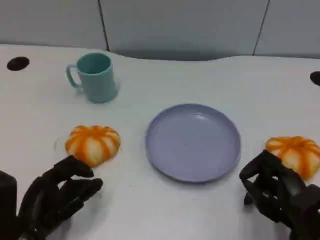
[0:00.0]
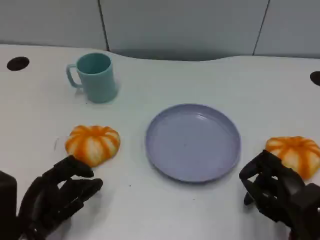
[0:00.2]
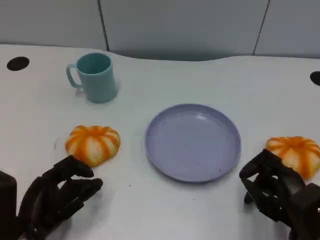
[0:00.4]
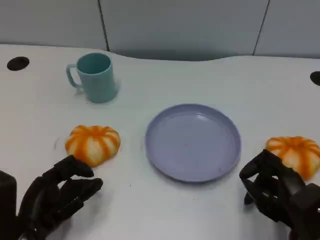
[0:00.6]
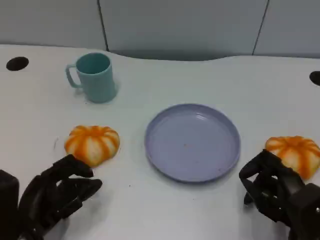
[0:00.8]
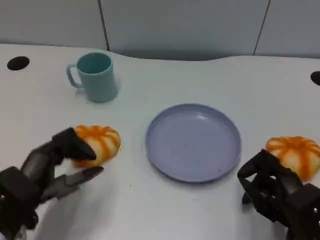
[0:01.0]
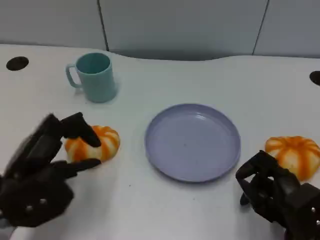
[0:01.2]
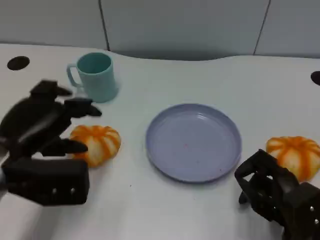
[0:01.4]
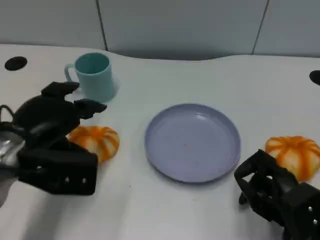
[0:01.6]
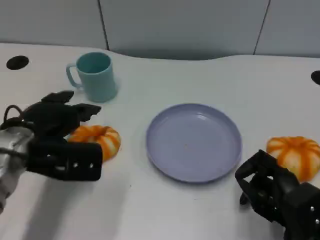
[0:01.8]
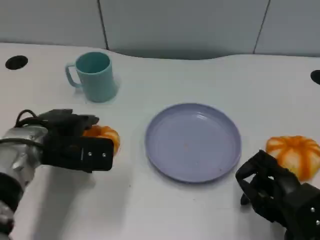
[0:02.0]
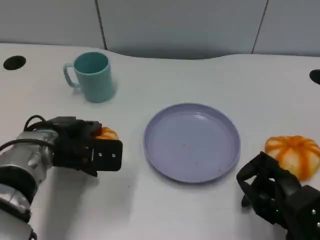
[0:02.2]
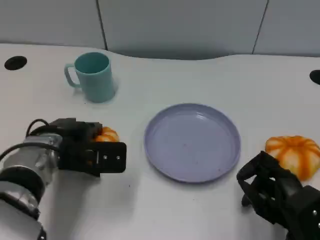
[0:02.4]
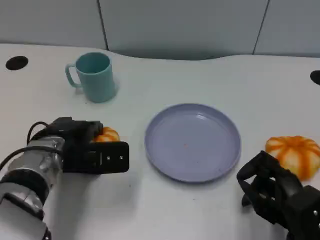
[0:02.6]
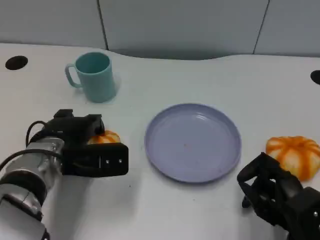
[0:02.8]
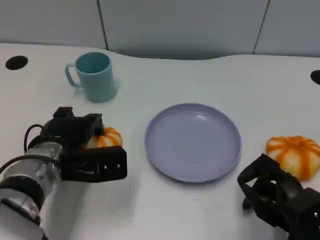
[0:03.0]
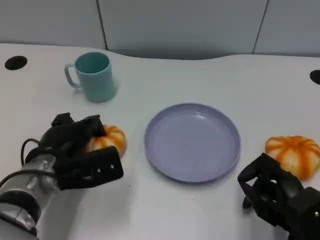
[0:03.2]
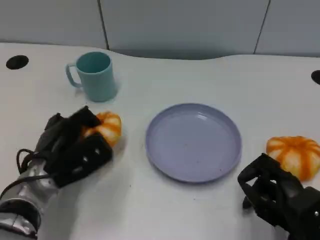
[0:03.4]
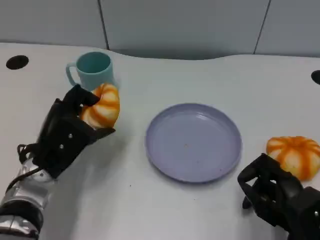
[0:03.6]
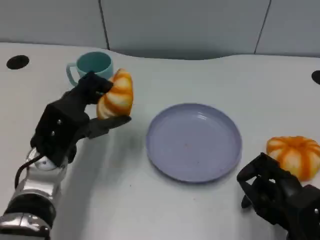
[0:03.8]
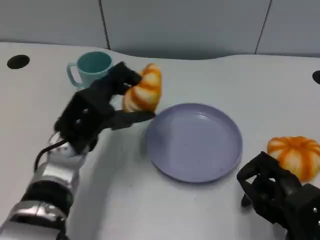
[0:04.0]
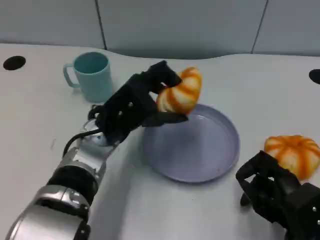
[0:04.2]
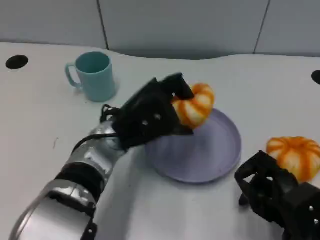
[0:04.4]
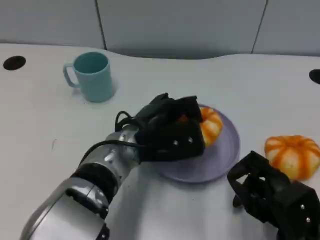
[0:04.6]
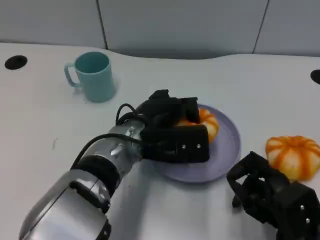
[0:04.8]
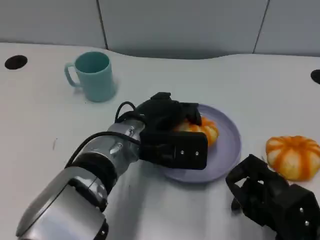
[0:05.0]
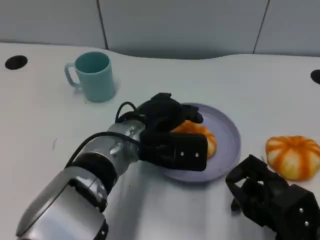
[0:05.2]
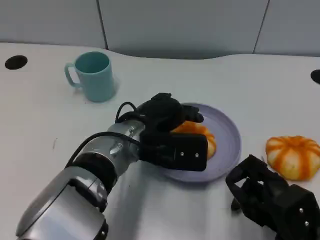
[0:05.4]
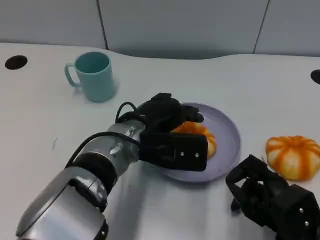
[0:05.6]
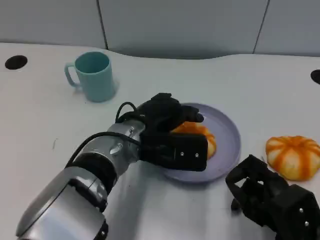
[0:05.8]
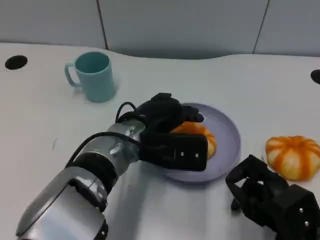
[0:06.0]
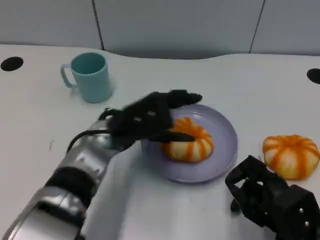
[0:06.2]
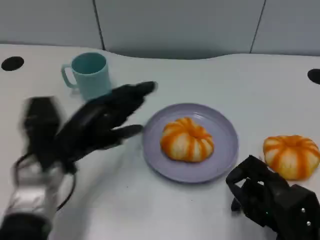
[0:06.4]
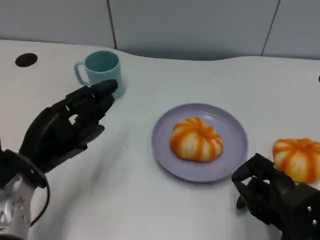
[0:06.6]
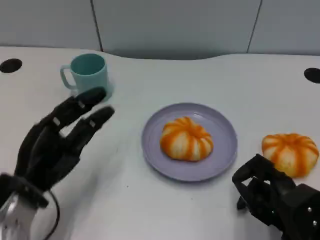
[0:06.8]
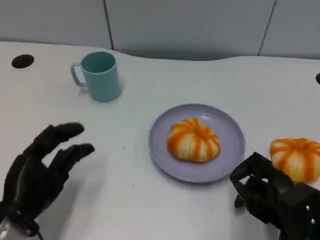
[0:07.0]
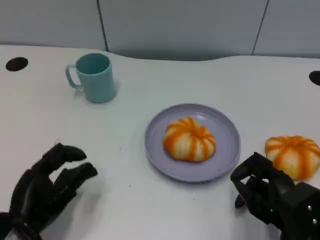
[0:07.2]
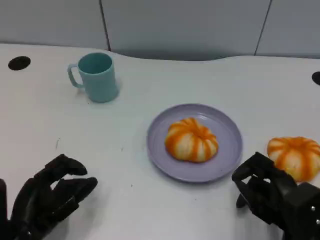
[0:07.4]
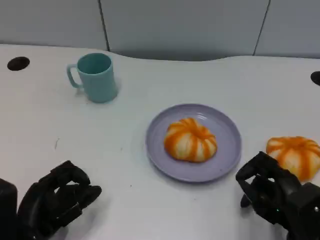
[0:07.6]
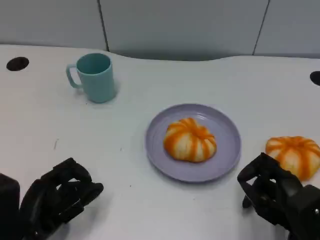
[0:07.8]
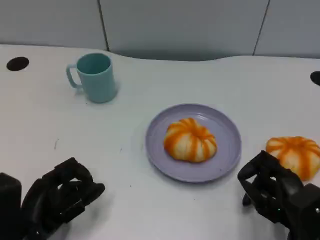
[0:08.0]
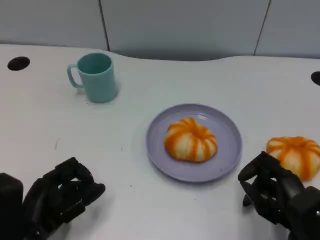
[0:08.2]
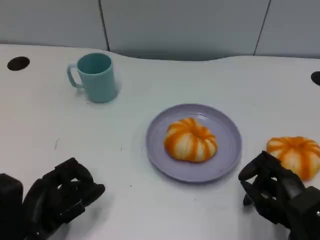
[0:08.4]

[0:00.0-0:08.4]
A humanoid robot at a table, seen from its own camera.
Task of the whole recording: Grasp the bread from the table and place it into the plate.
0:00.0 to 0:01.4: The left hand shifts some 15 cm upward and forward.
0:01.4 to 0:02.8: The left hand heads downward and forward, covering some 10 cm.
0:02.8 to 0:04.2: The left hand goes some 10 cm to the right.
0:05.6 to 0:07.0: The left hand moves to the left and backward, roughly 20 cm.
0:07.0 to 0:08.4: There are only small adjustments of the hands.

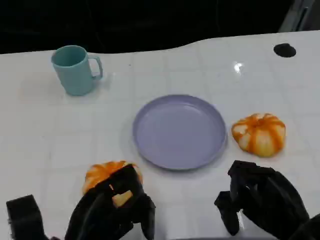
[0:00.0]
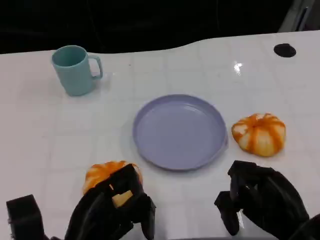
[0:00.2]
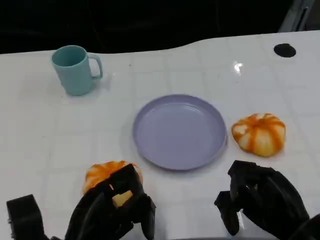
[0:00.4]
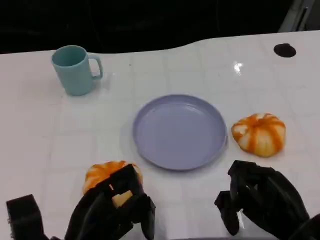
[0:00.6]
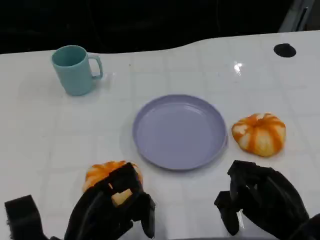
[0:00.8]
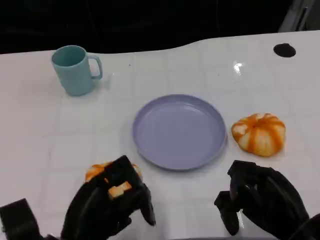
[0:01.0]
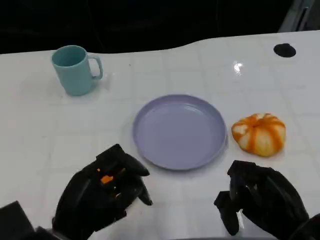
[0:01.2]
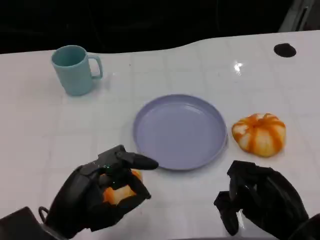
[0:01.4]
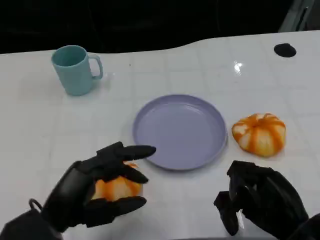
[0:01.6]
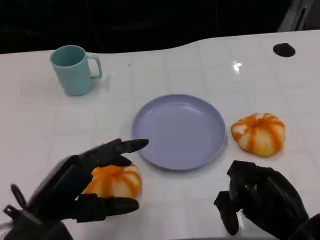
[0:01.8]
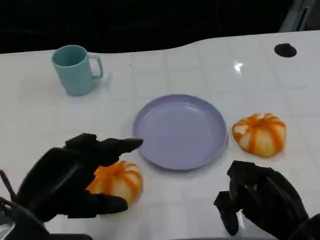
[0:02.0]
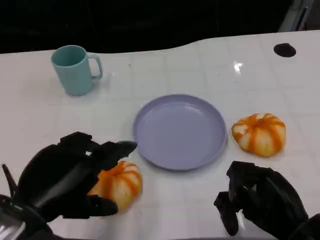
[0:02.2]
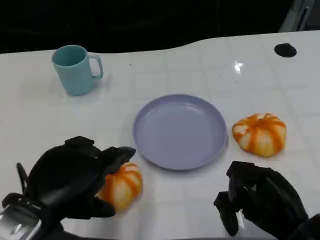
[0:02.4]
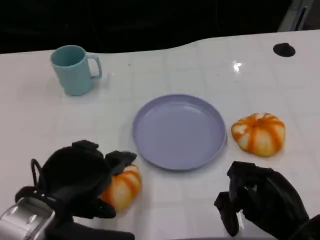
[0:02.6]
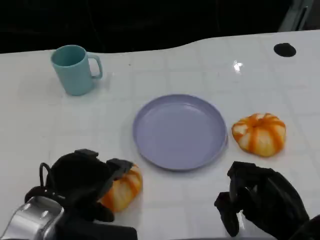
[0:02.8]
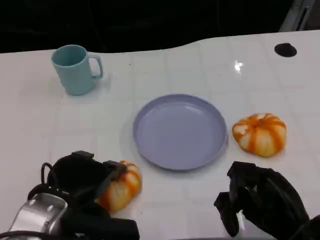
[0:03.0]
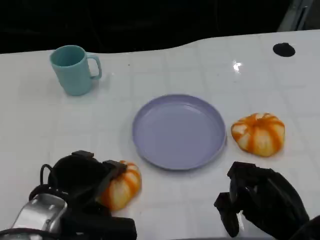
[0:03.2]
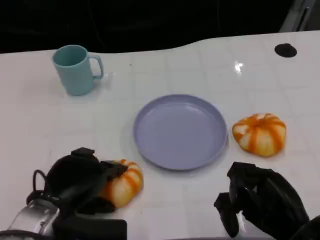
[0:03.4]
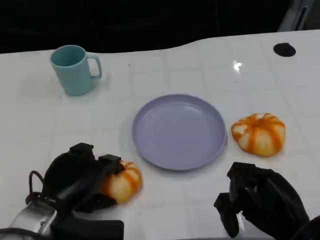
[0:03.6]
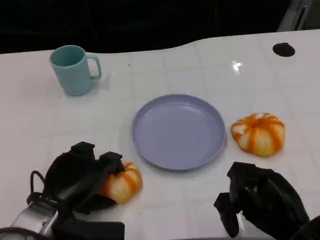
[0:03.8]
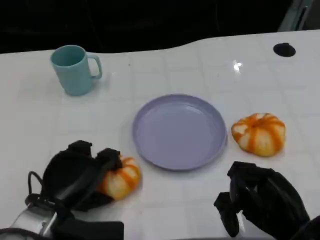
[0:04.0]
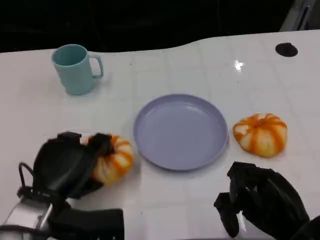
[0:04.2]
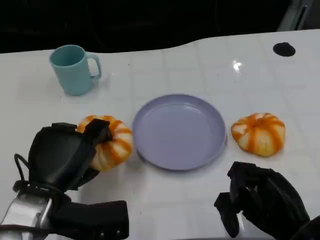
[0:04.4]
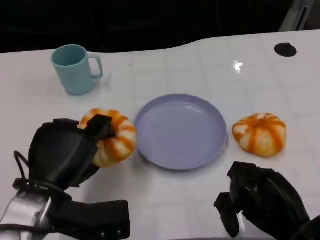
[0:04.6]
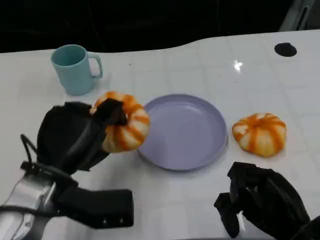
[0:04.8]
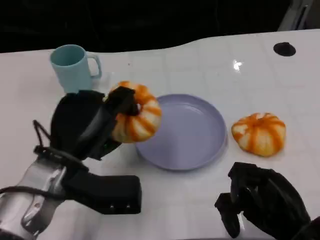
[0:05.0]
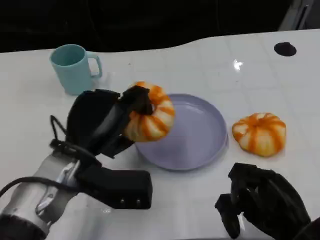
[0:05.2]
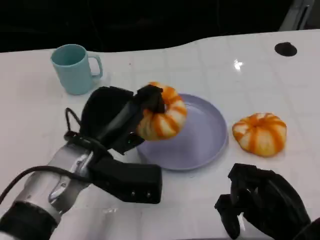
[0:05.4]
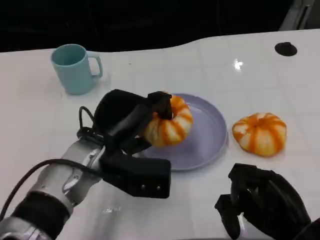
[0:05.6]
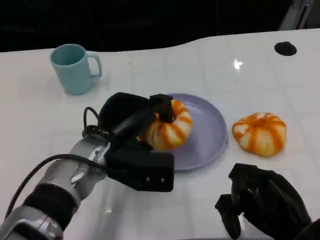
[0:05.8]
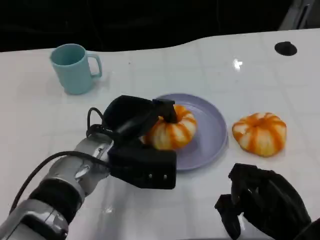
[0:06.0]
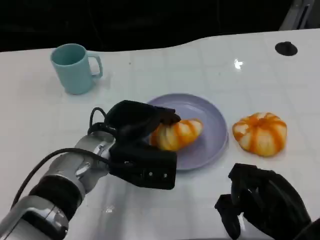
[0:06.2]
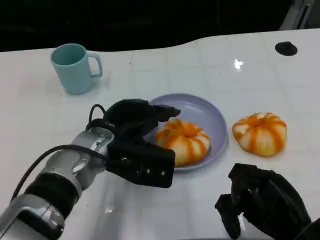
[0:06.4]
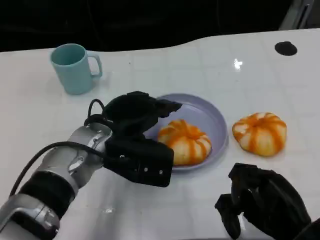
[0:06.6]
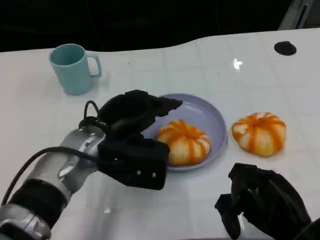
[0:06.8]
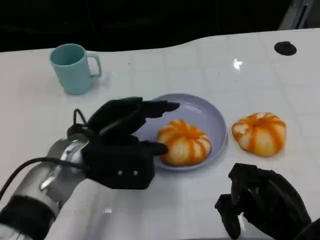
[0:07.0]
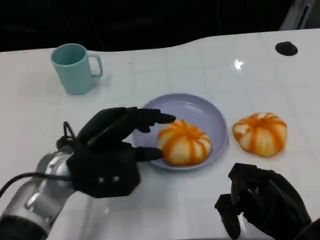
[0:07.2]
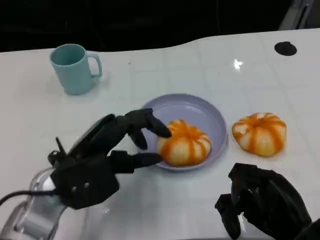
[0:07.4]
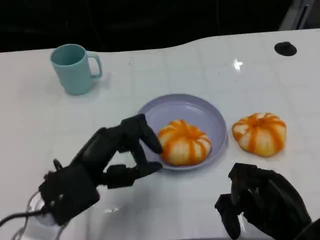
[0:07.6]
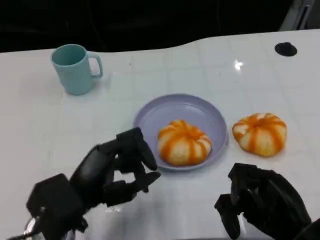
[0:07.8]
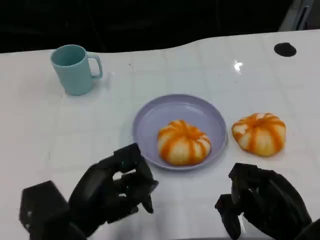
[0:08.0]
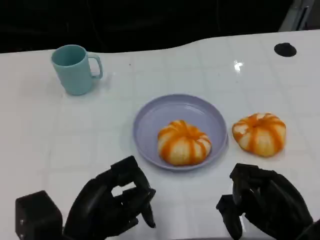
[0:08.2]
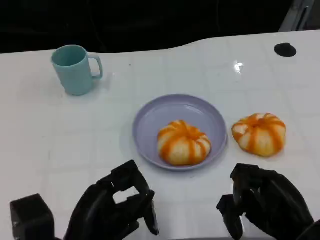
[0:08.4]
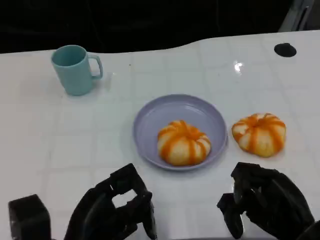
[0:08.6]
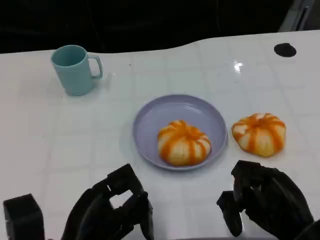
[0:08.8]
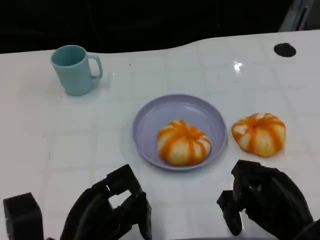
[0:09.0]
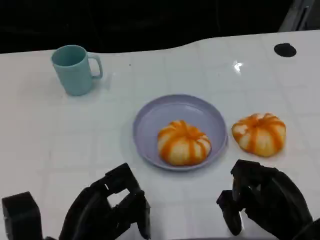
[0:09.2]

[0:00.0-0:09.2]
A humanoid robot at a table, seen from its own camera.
Task of the whole recording: Grasp the bread from the table and place it into the plate.
0:00.0 to 0:01.6: The left hand ends up roughly 5 cm from where it was.
0:04.6 to 0:06.2: The left hand goes roughly 10 cm to the right and forward.
0:06.2 to 0:07.6: The left hand heads backward and to the left, covering roughly 10 cm.
0:07.6 to 0:09.2: The left hand shifts approximately 5 cm backward.

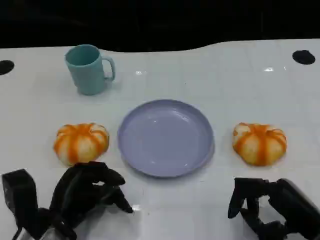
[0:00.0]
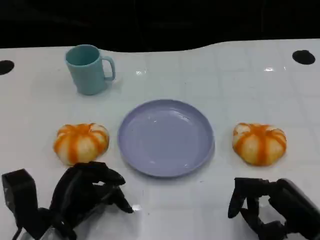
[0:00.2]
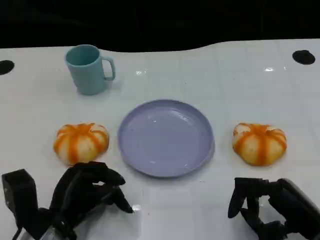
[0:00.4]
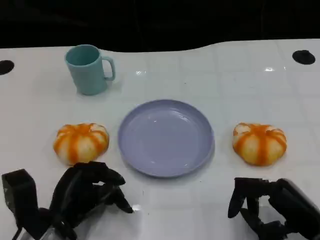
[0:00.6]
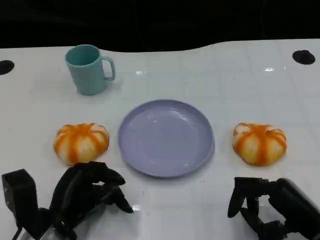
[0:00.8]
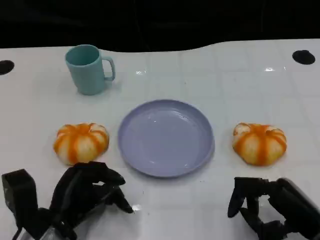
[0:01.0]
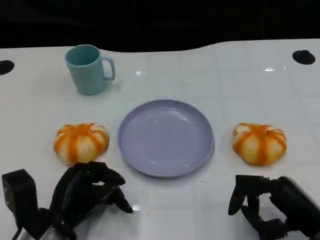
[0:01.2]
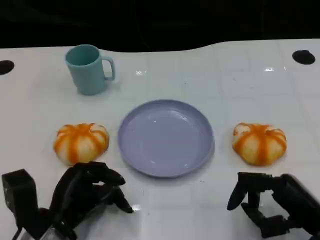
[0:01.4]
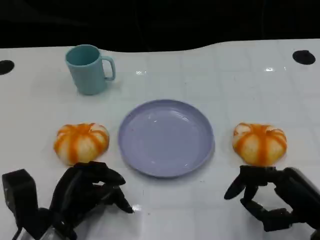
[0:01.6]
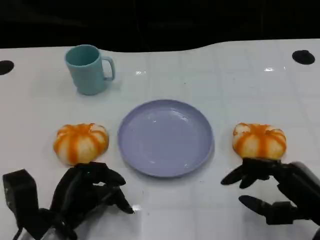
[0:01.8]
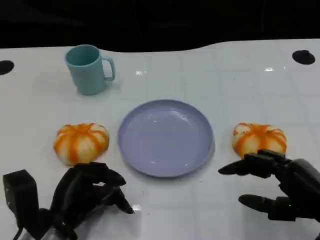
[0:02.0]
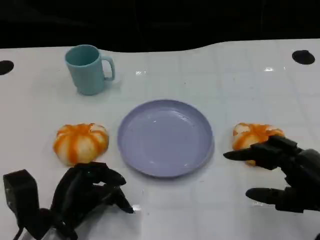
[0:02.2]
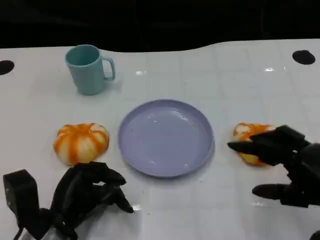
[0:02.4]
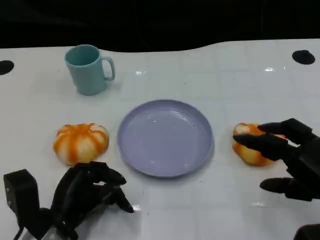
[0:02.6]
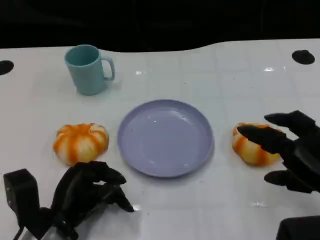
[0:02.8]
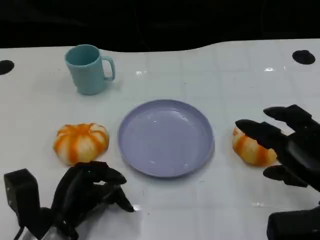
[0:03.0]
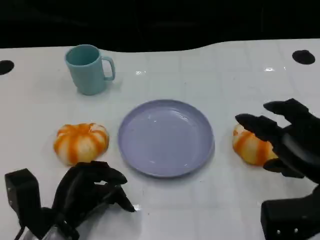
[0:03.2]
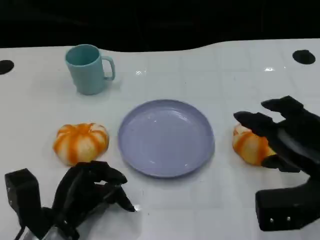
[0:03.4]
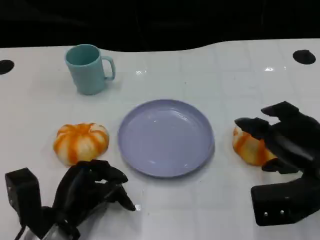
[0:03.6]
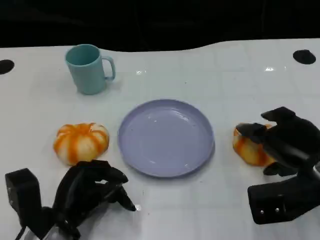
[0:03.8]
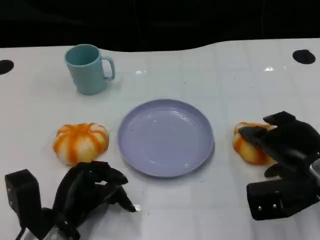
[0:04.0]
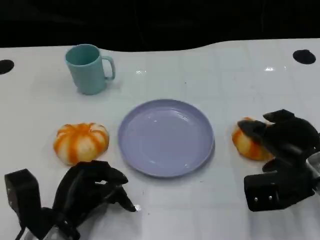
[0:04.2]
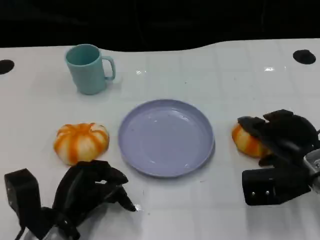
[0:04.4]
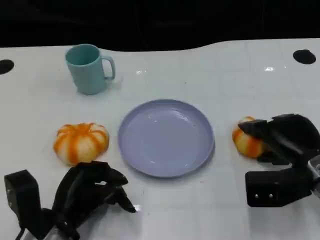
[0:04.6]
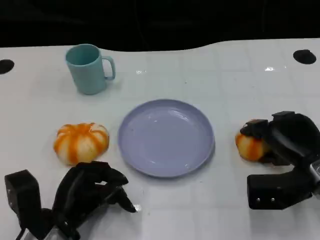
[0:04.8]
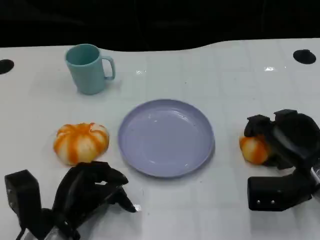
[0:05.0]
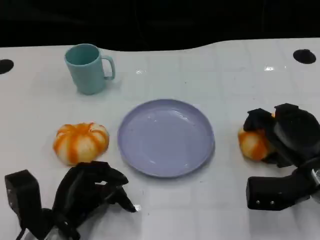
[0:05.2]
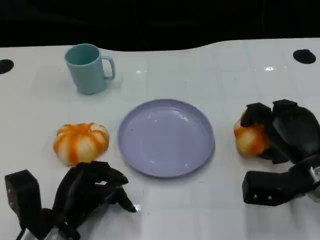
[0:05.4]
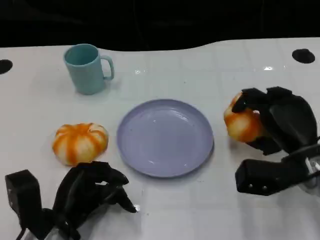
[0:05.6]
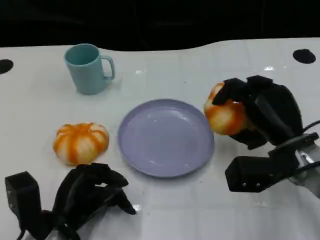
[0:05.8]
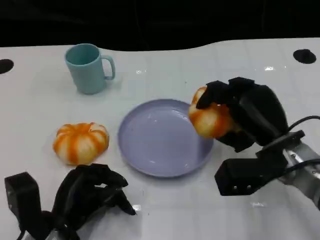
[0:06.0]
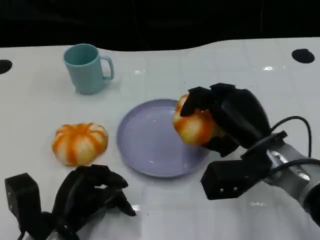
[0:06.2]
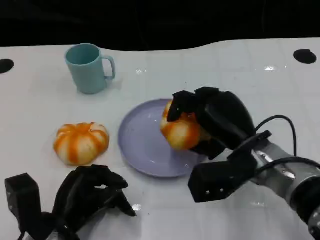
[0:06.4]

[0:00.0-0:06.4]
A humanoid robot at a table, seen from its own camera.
Task of the whole recording: Grasp the bread from the table and place it into the plate.
0:00.0 to 0:01.6: There are only small adjustments of the hands.
0:01.6 to 0:03.2: The right hand shifts approximately 5 cm upward.
0:03.2 to 0:04.8: The right hand is displaced downward and forward by roughly 10 cm.
0:04.8 to 0:06.4: The right hand is displaced to the left by approximately 10 cm.
